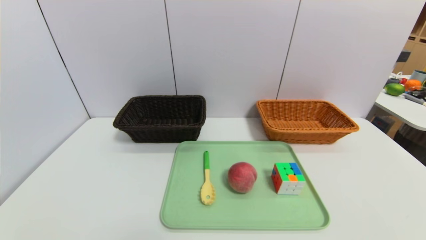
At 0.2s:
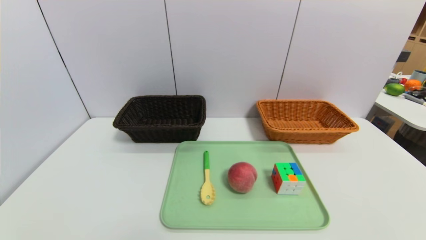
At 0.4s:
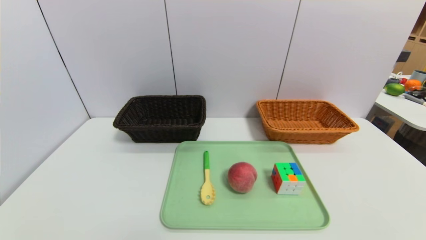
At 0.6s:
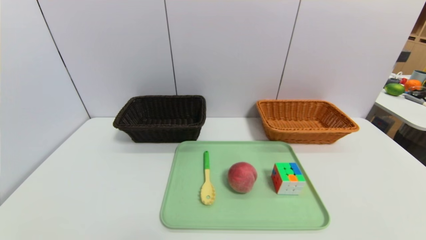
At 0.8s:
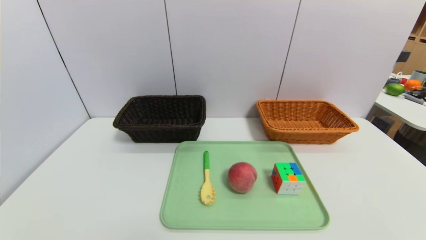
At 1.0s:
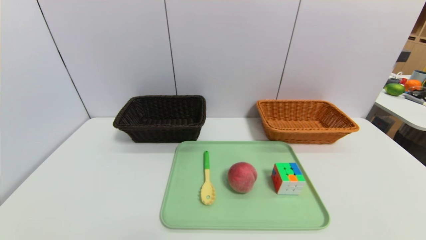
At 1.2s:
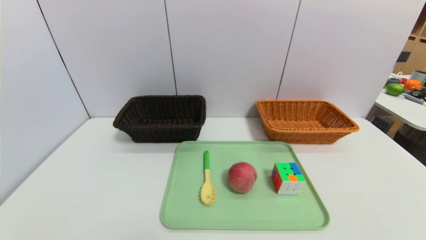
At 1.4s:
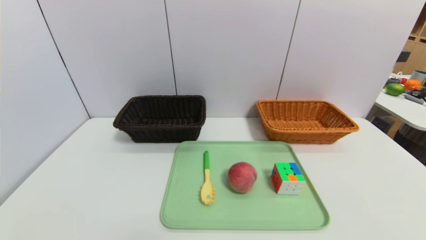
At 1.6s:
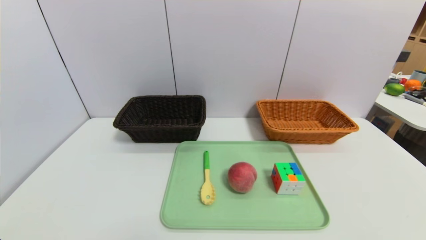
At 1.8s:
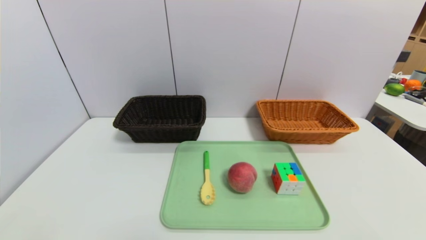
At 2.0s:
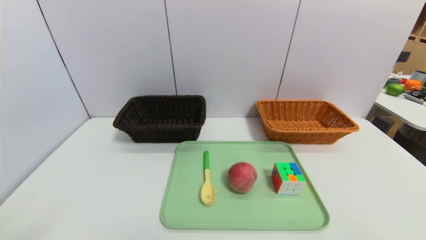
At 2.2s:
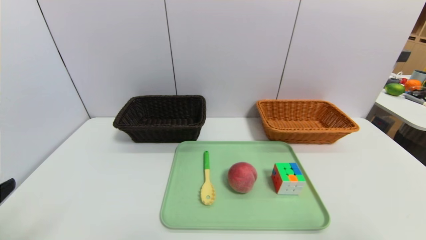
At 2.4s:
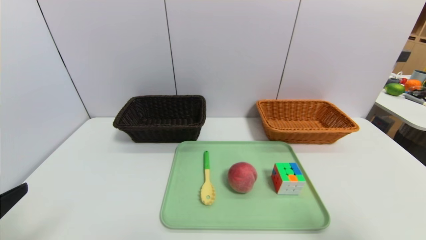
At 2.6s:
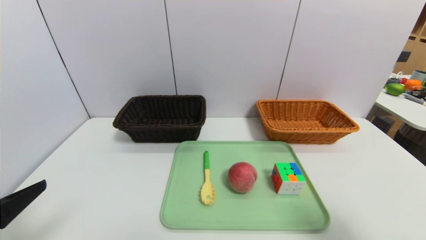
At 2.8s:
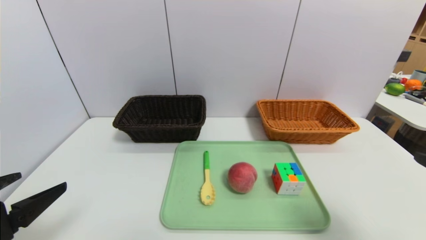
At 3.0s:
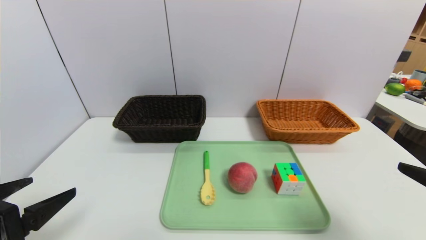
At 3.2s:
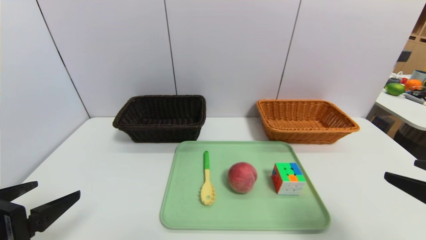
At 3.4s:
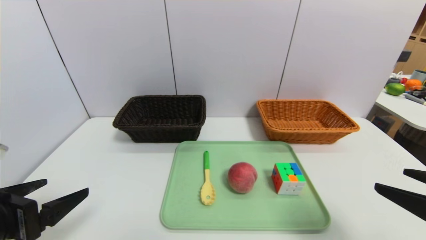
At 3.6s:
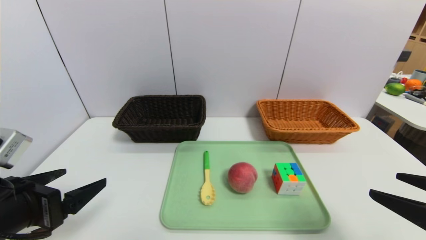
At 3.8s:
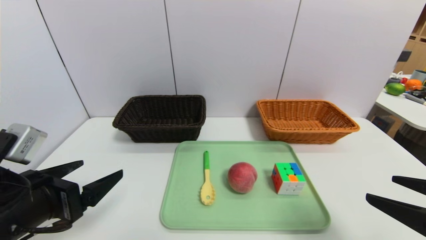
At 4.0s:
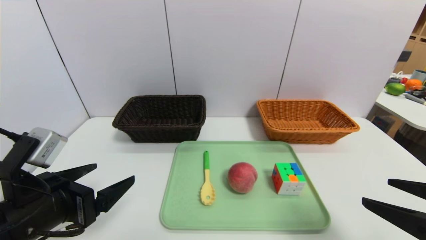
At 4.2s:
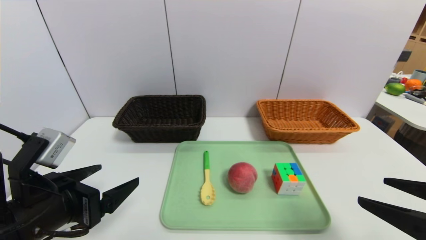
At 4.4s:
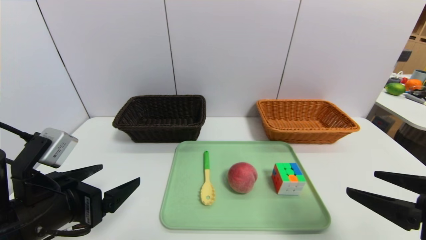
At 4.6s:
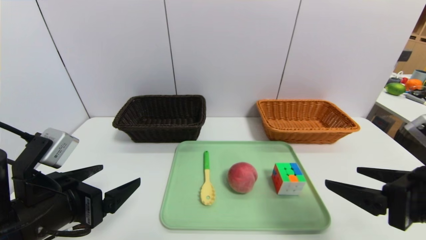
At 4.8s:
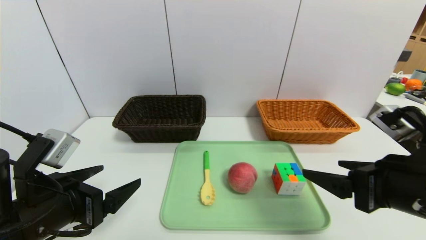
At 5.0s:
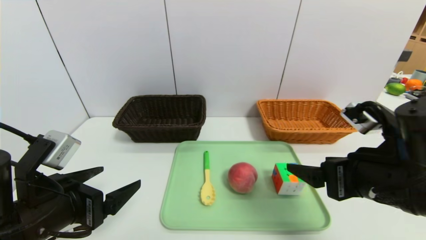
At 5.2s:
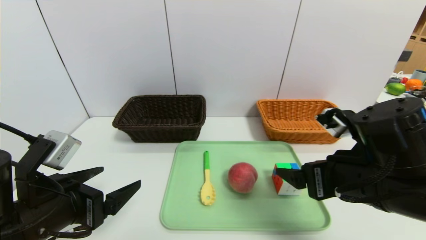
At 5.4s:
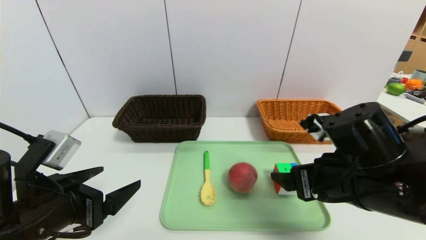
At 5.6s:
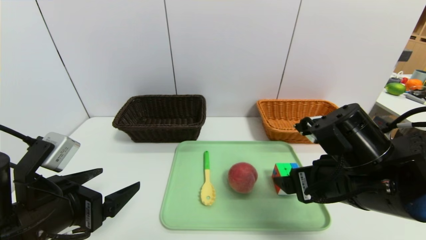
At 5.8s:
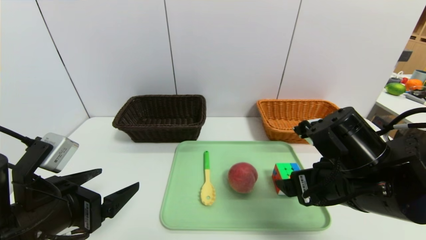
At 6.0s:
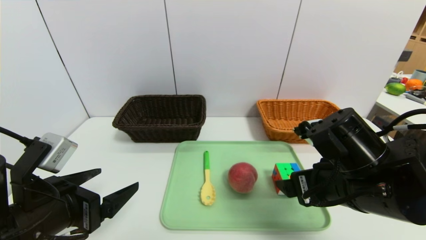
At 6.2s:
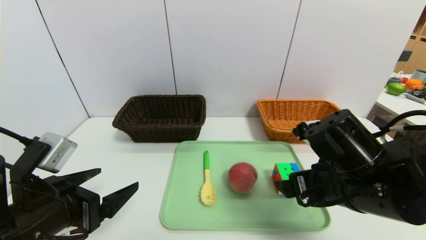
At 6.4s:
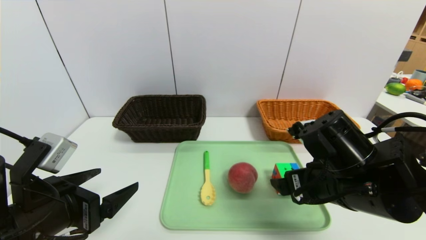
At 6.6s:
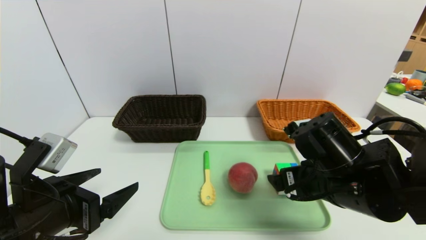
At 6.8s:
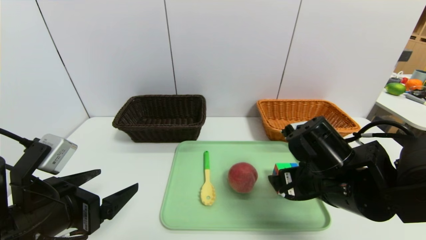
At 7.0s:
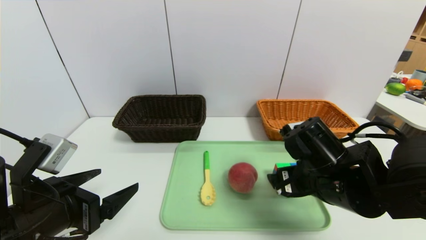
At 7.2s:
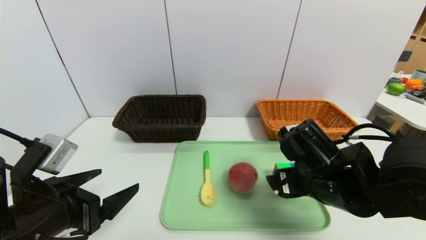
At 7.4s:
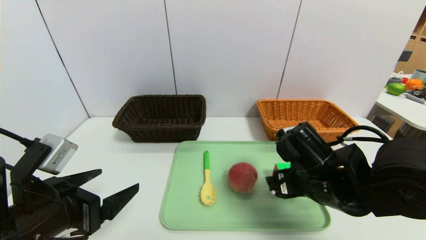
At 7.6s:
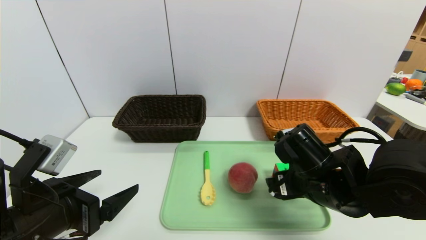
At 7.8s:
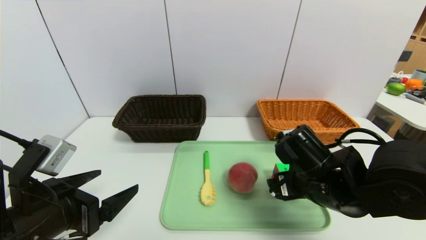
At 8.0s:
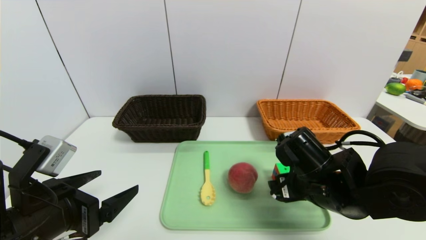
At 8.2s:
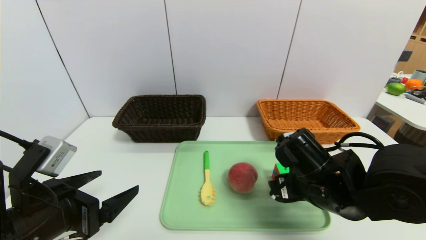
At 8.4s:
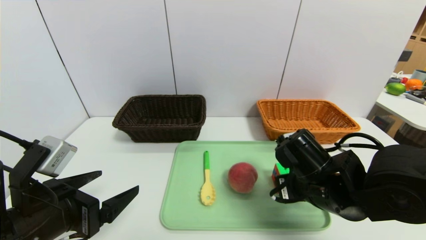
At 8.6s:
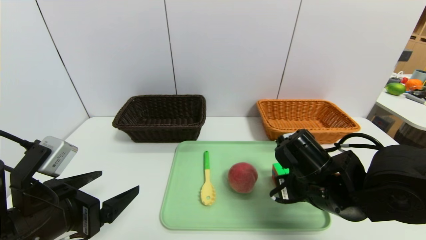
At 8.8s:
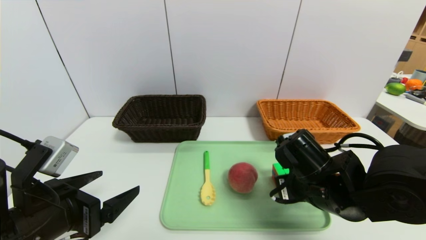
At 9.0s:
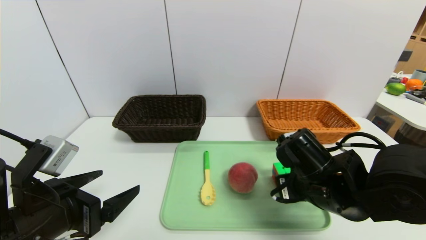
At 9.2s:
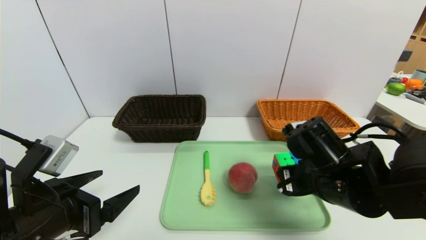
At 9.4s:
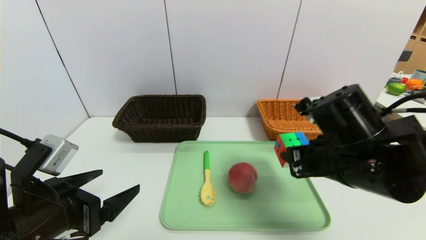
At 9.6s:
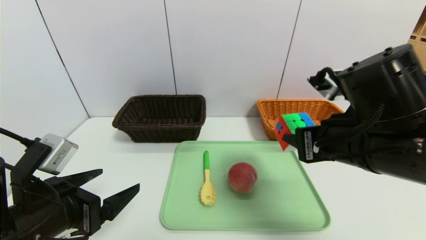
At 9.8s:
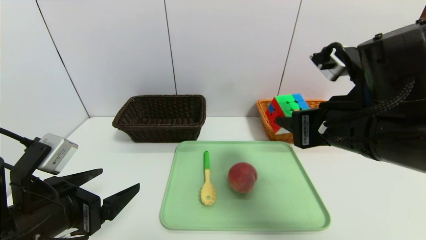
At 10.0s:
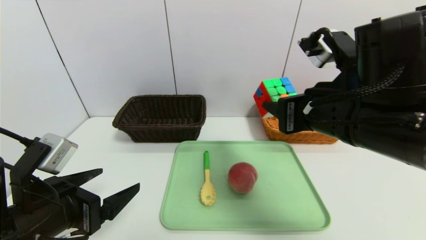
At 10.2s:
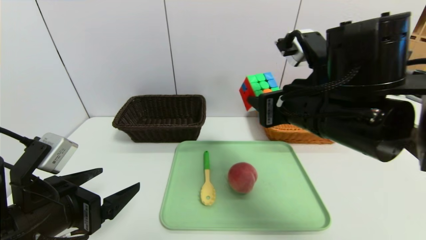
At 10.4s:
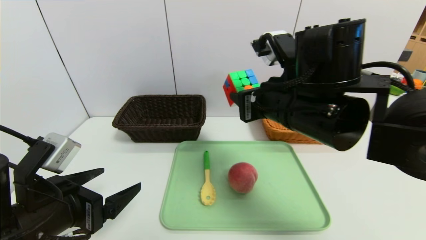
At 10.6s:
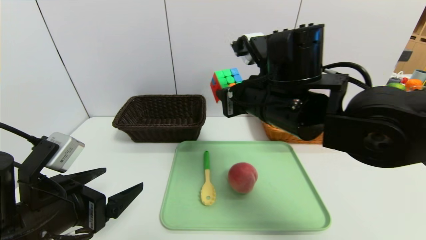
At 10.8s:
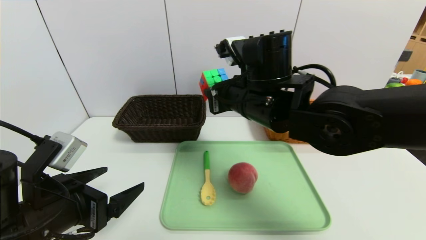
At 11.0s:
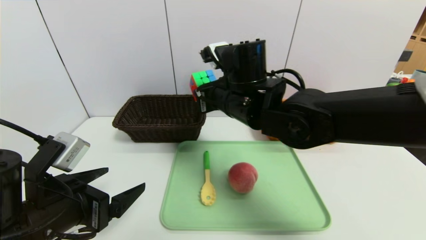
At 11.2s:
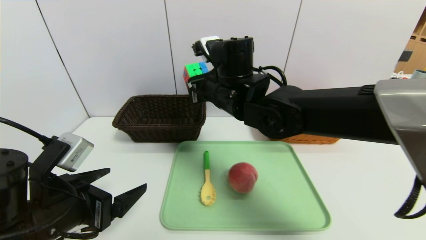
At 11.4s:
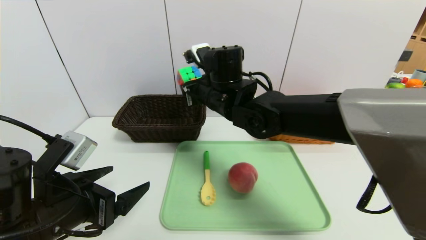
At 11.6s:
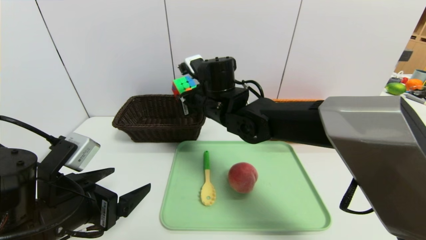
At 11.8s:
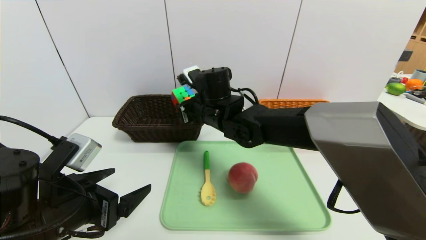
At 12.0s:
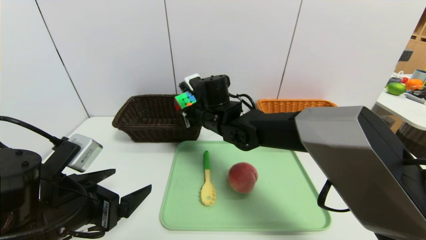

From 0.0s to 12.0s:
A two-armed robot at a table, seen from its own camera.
Task of the whole recording: place the food in the right basket with the right gripper, and place the non food items in the left basket with the left gripper.
From 1.6s to 3.0s: The right gripper moves forward and upward, about 15 cm; the left gripper shifts about 10 cm forward.
From 3.0s to 4.4s: The left gripper moves to the right, approximately 5 cm. The right gripper moves some 5 cm.
From 4.4s to 6.0s: The right gripper moves to the left and forward, roughly 15 cm.
From 6.0s to 7.6s: The right gripper shifts by some 5 cm.
From 7.6s to 9.0s: The right gripper closes.
From 9.0s to 10.4s: The right gripper shifts roughly 15 cm upward and to the left.
From 10.4s to 12.0s: The right gripper is displaced forward, to the left and downward by about 20 cm.

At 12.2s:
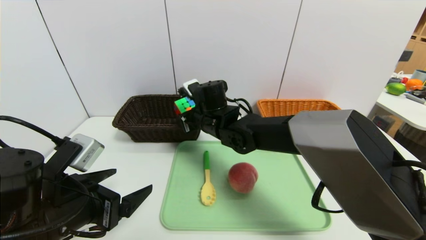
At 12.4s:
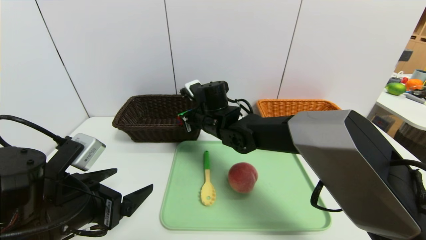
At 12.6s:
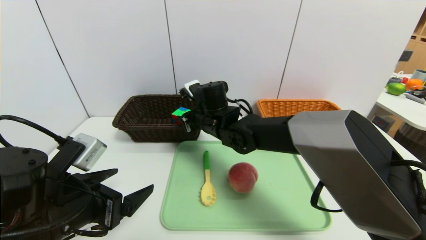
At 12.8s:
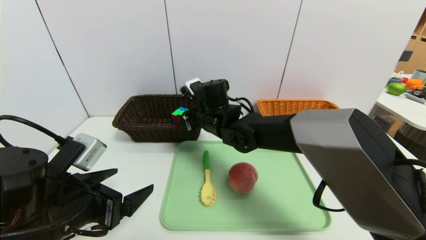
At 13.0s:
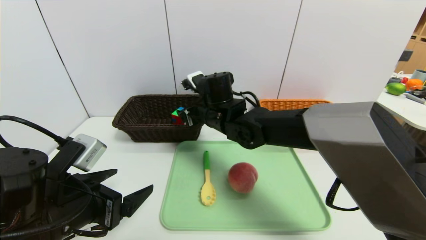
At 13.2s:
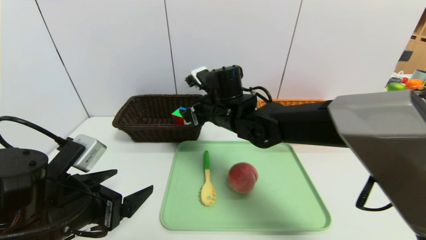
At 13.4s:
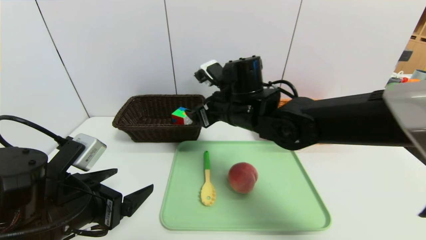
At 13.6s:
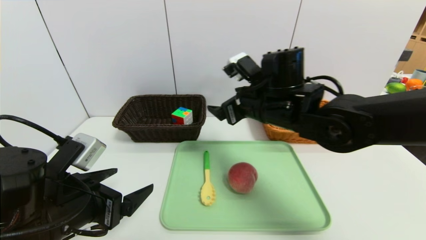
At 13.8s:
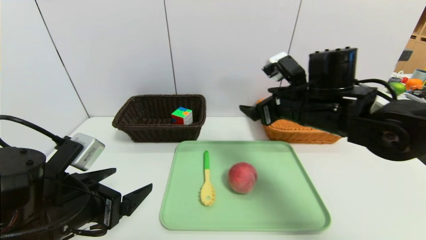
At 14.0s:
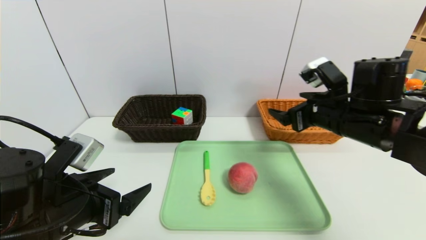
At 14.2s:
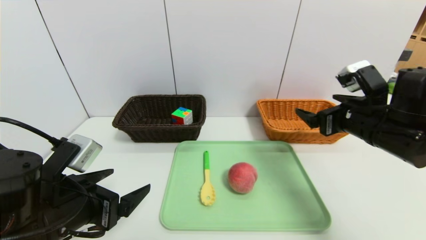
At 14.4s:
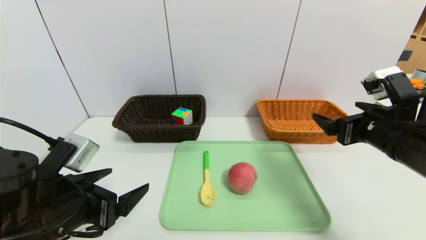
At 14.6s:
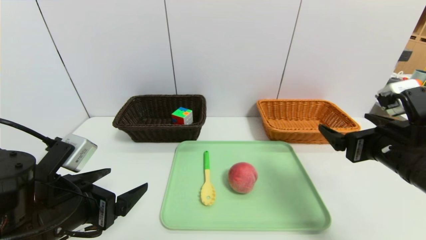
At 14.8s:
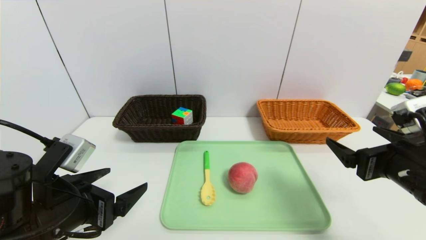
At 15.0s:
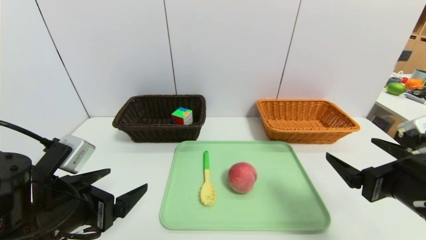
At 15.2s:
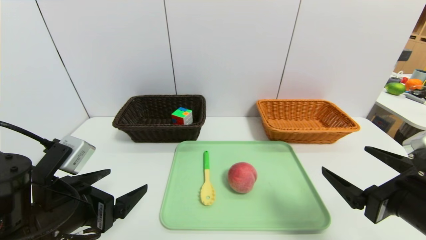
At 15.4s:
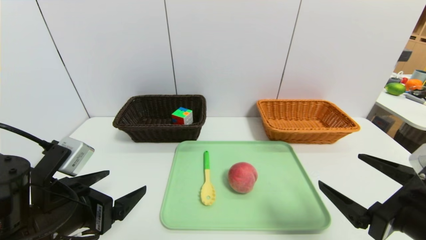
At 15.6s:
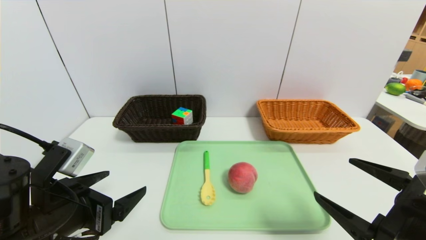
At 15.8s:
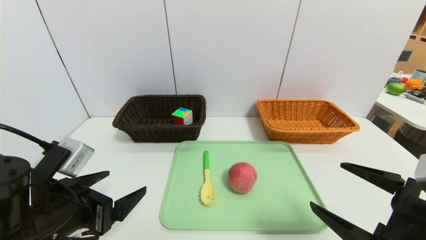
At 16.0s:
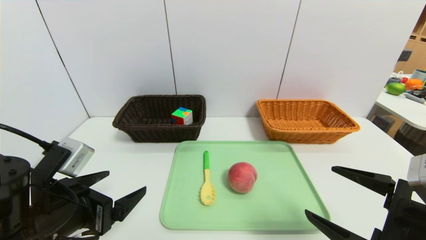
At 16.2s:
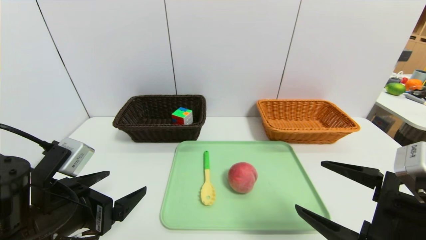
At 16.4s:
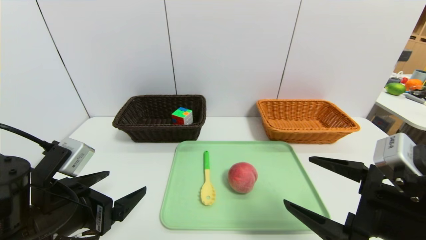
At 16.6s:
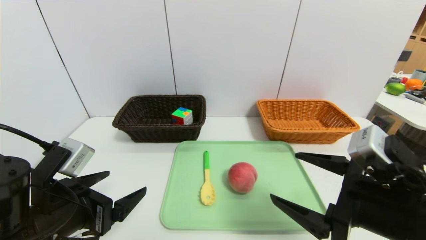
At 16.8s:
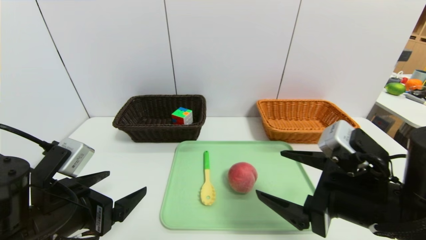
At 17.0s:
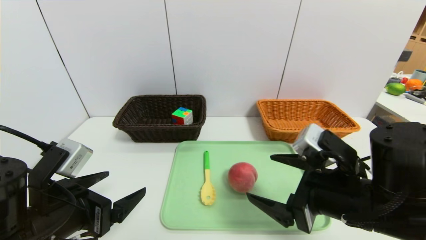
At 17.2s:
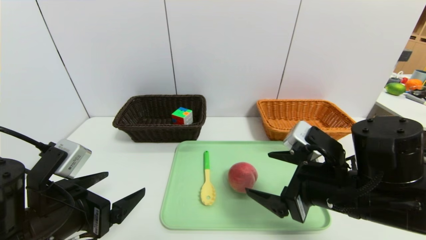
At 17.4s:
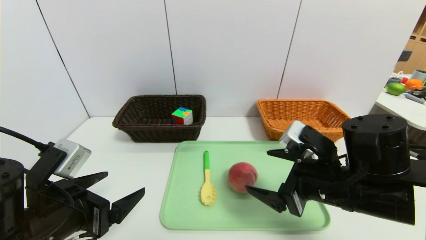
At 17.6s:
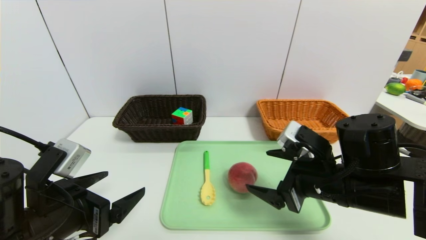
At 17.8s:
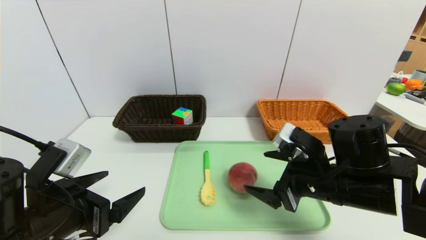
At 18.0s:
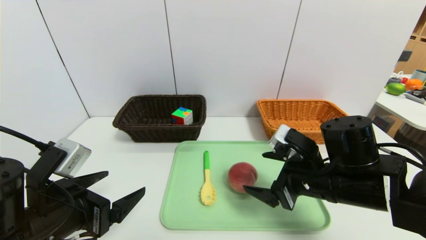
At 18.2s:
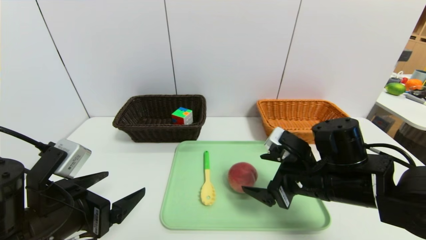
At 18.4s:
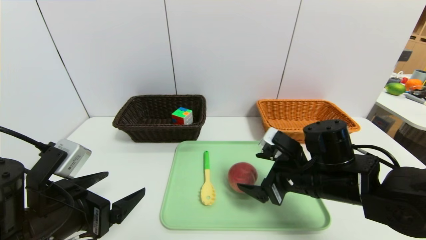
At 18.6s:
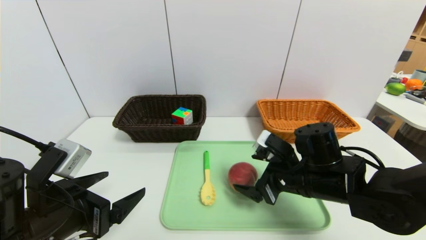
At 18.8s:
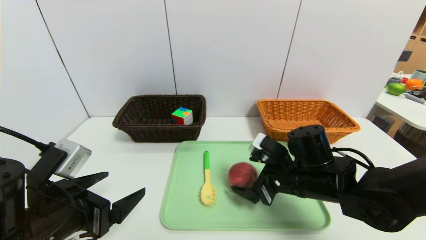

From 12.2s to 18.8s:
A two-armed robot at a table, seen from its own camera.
Task of the whole recording: place the food in the right basket with the right gripper, and place the non food items in the left basket with the left gripper.
From 12.2s to 13.8s: The right gripper heads to the right and backward, covering roughly 20 cm, and opens up.
From 13.8s to 15.4s: The right gripper shifts about 20 cm backward and to the right.
From 15.4s to 17.2s: The right gripper travels to the left and forward by about 10 cm.
From 17.2s to 18.8s: The right gripper moves forward and downward, roughly 10 cm.
